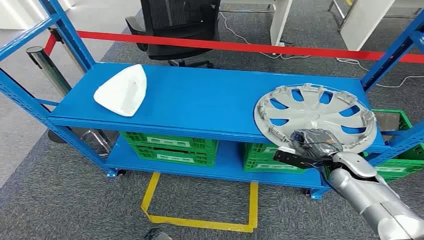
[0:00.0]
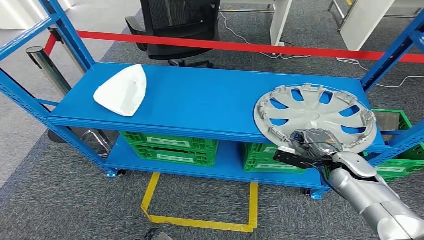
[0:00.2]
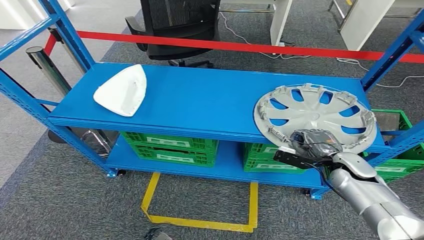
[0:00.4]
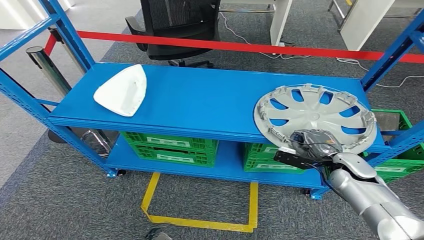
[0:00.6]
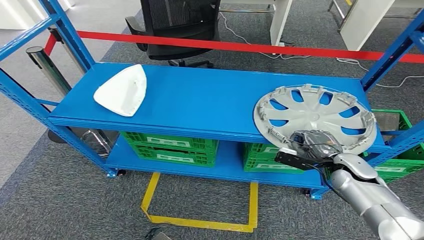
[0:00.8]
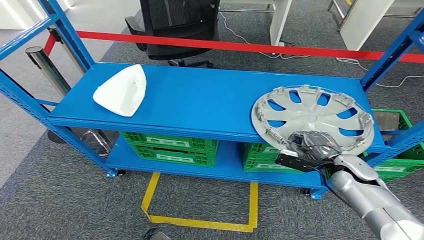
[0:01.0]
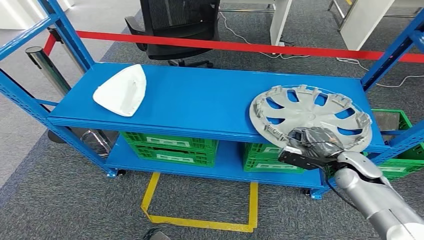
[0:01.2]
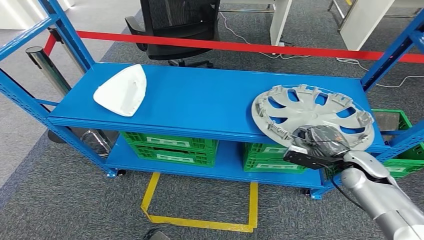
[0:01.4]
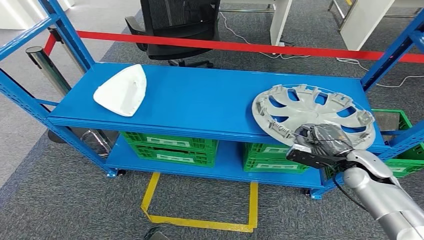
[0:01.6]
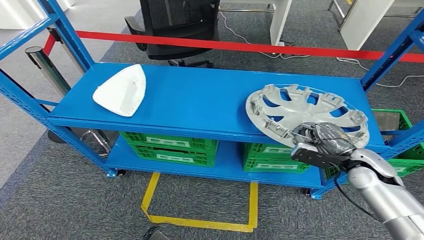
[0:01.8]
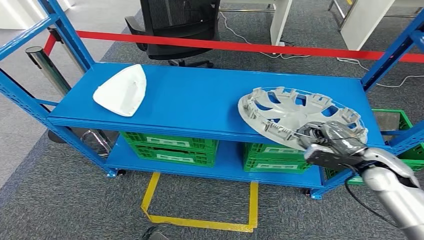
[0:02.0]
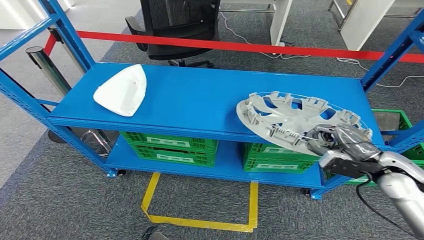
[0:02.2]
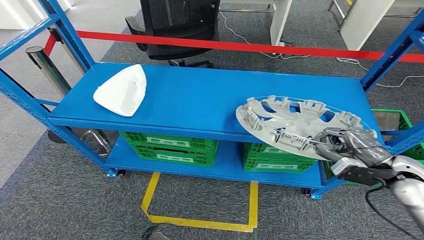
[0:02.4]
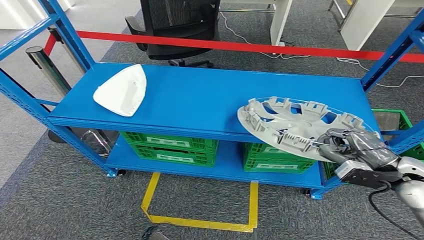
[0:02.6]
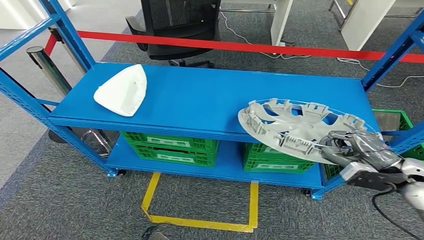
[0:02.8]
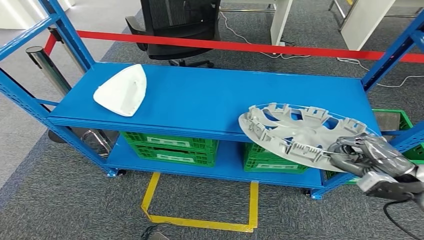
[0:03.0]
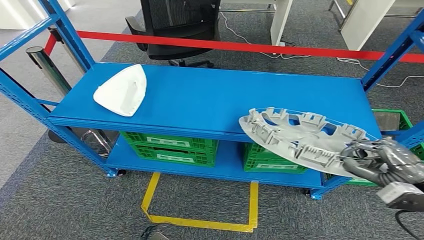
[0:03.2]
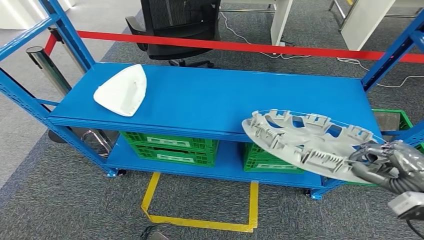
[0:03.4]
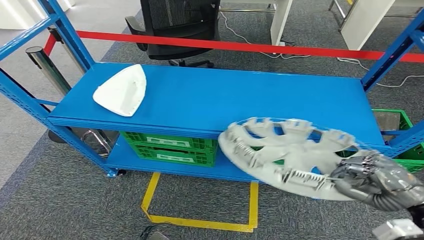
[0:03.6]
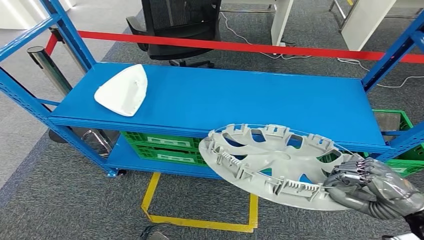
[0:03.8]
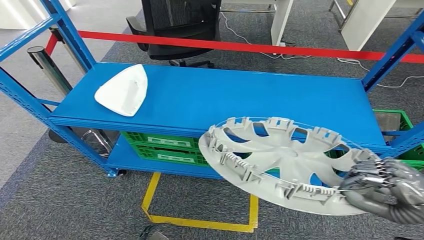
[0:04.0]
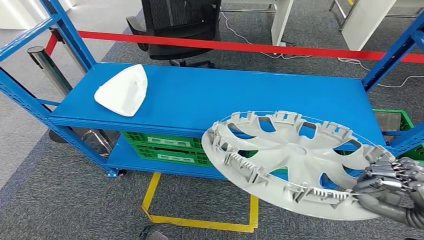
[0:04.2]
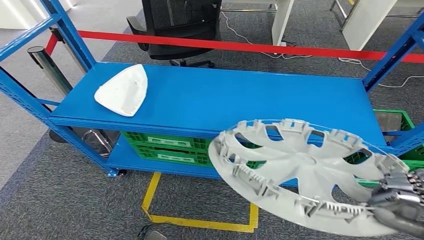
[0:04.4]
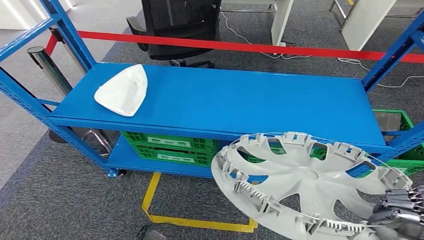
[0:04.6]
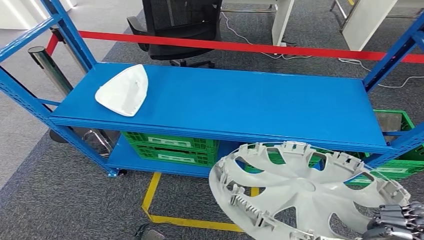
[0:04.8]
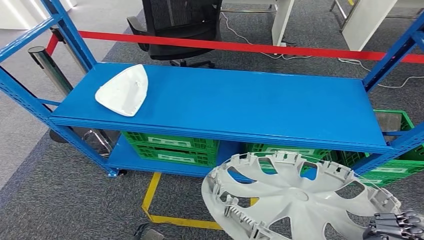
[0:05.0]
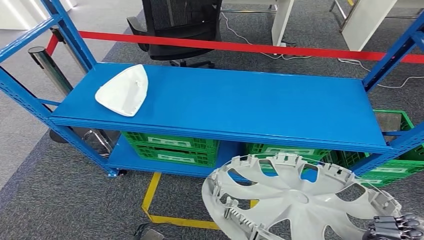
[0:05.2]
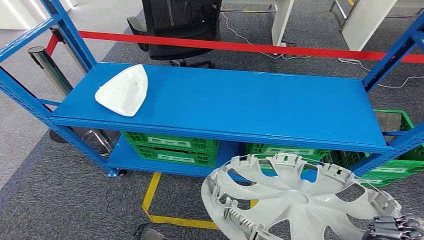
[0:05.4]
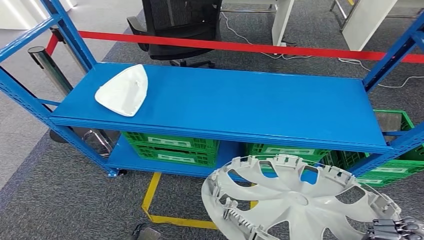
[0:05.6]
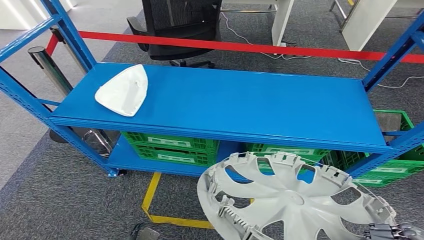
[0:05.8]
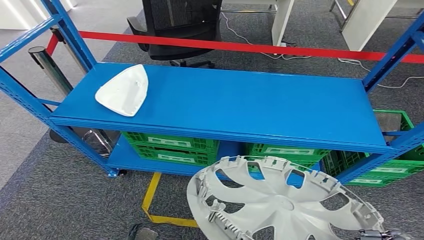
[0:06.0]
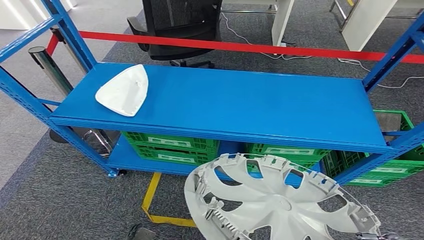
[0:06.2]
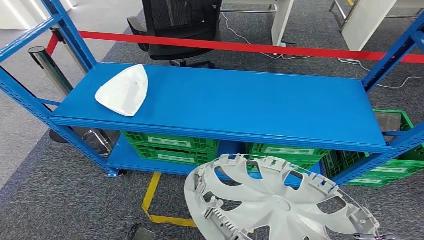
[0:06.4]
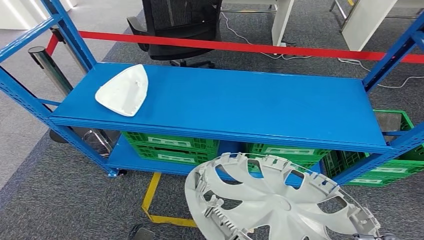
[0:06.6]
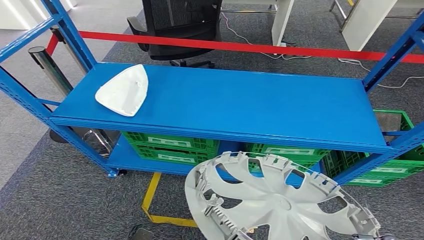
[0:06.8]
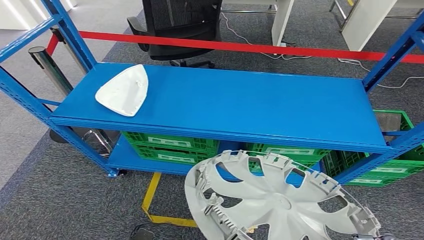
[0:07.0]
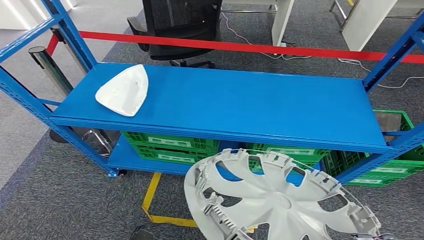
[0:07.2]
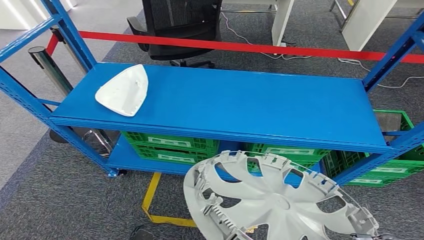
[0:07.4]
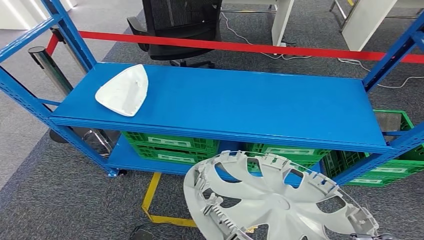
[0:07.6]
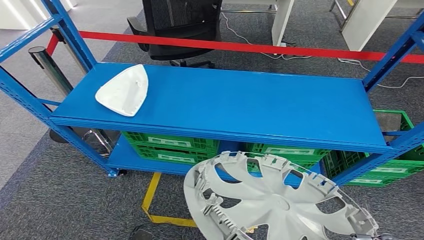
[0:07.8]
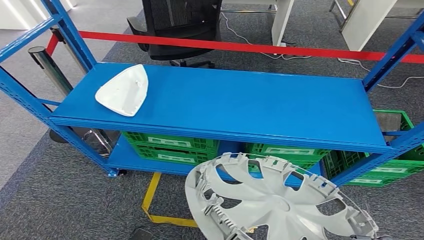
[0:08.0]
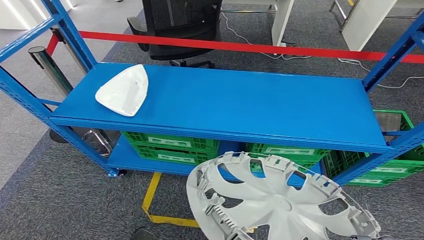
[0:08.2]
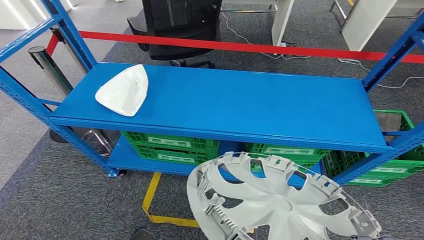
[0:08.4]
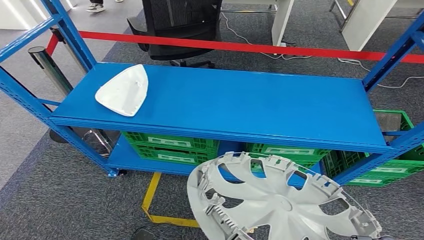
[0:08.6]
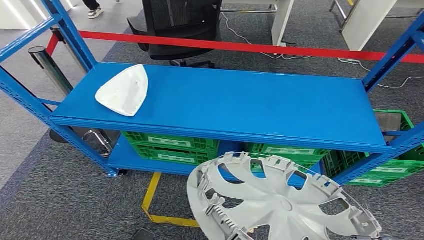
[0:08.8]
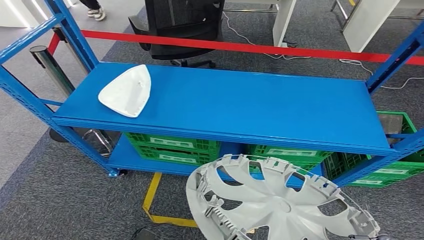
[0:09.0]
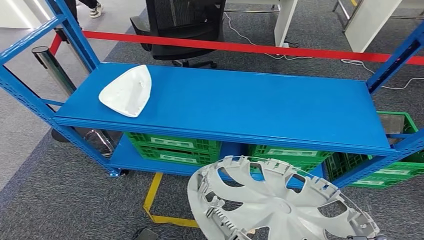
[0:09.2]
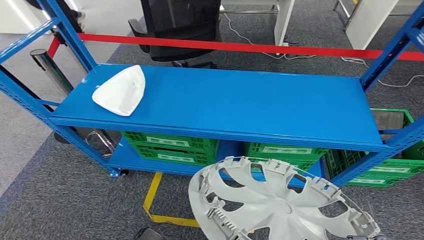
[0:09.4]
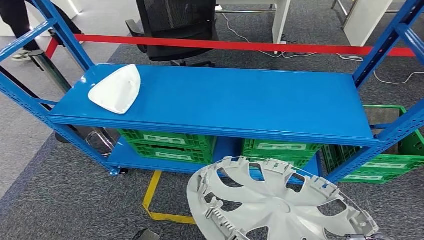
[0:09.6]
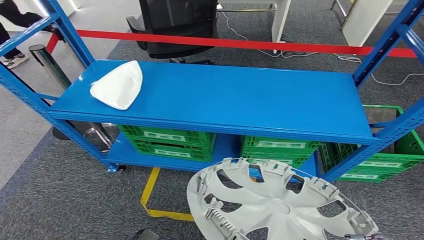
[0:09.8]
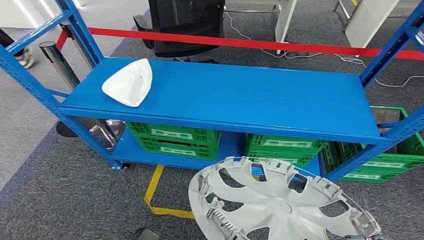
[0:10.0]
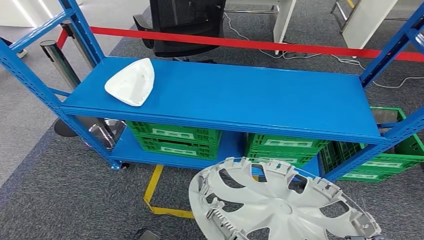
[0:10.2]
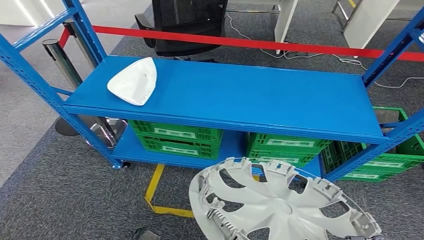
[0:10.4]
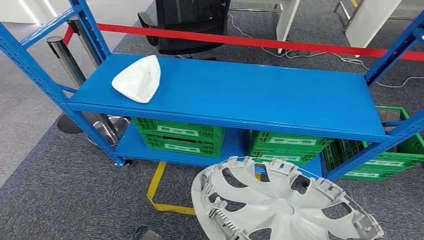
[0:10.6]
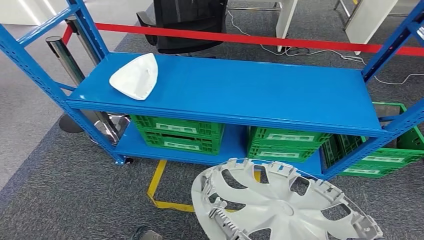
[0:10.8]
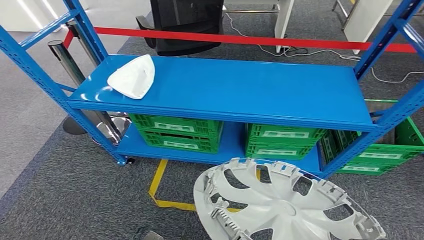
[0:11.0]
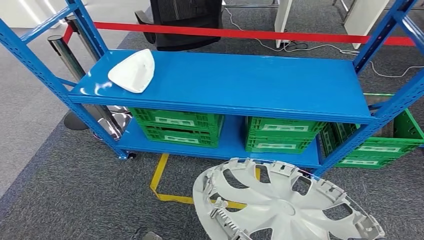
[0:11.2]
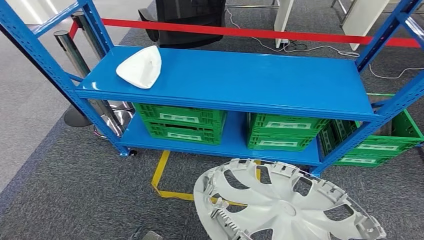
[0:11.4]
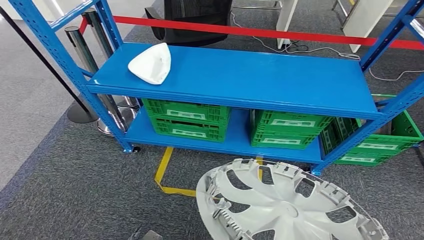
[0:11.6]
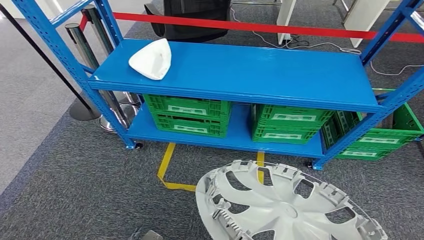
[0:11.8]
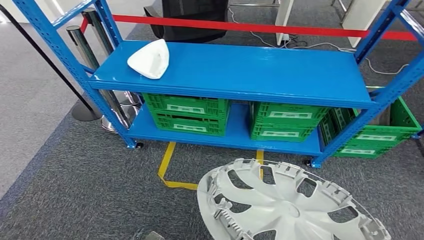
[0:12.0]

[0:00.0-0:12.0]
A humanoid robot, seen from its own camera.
Step, 0.0 to 10.2 s: Pick up the small component from the shelf.
1.6 to 3.0 s: The right hand shifts some 15 cm to the right, backward and upward.
3.0 to 4.4 s: The right hand travels backward and upward by some 15 cm.
4.4 to 6.0 s: The right hand shifts approximately 10 cm backward and downward.
6.0 to 7.6 s: The hands make only small movements.
7.6 to 9.0 s: Neither hand changes place.

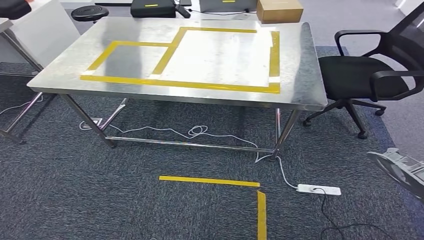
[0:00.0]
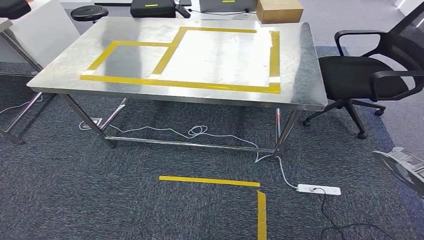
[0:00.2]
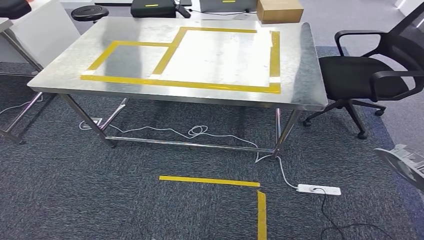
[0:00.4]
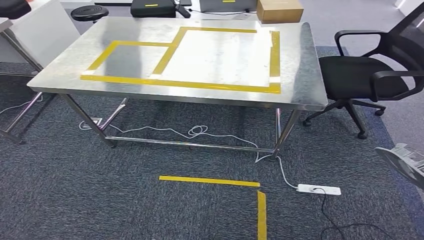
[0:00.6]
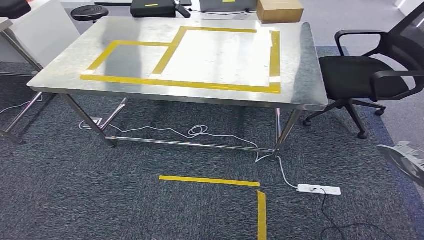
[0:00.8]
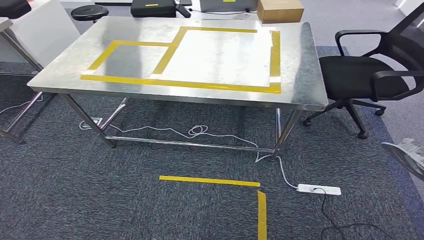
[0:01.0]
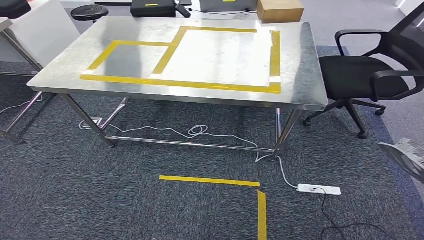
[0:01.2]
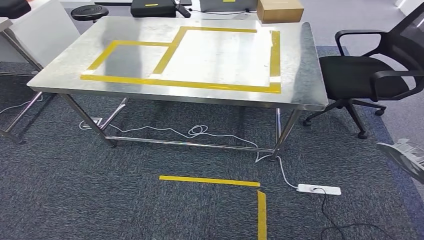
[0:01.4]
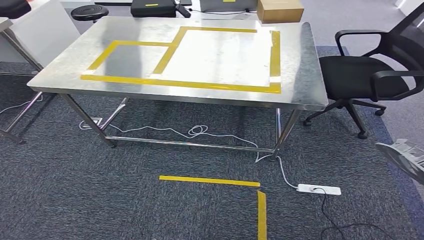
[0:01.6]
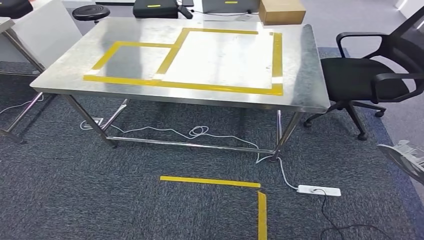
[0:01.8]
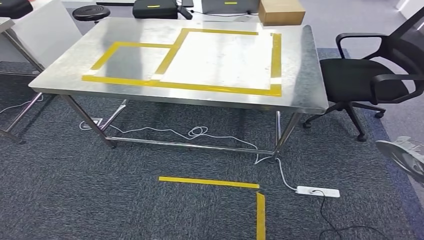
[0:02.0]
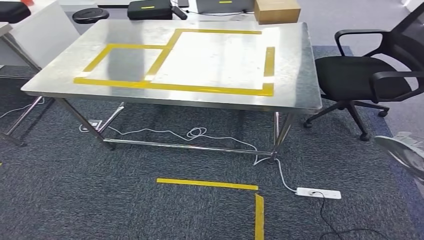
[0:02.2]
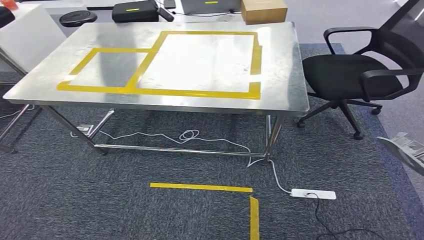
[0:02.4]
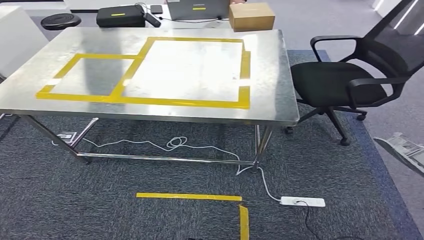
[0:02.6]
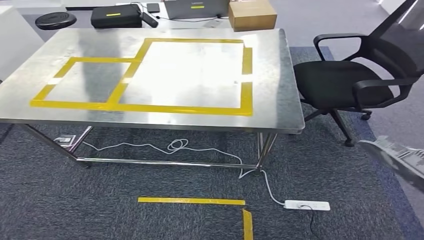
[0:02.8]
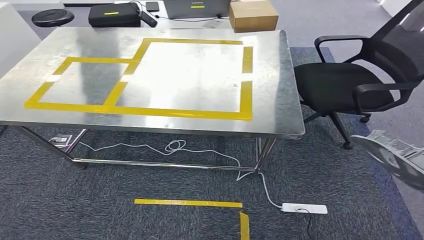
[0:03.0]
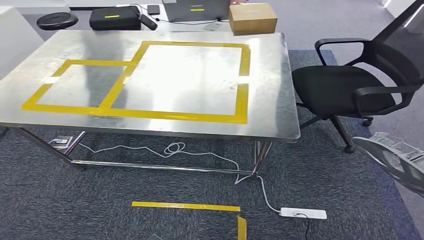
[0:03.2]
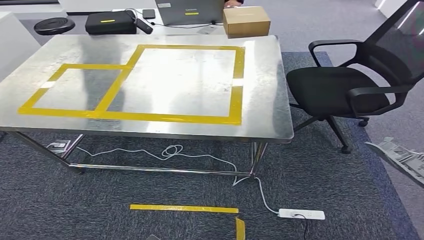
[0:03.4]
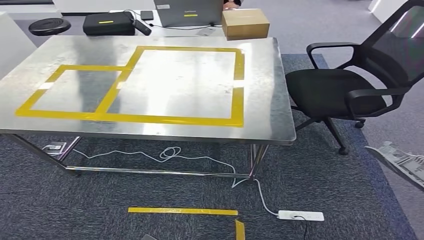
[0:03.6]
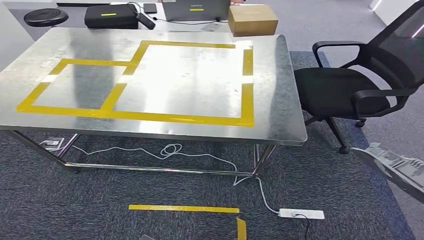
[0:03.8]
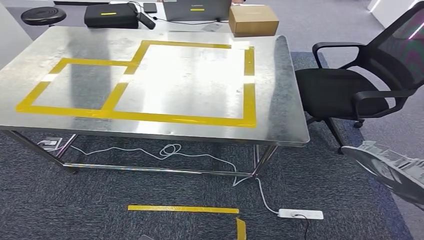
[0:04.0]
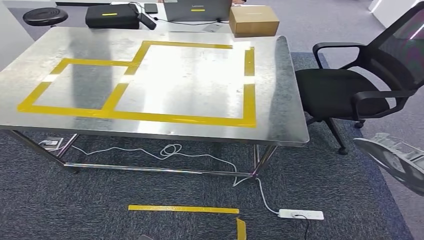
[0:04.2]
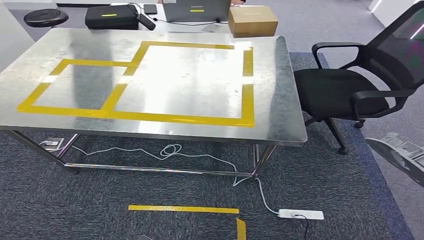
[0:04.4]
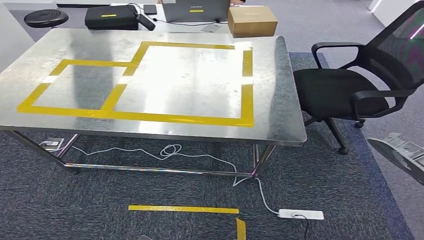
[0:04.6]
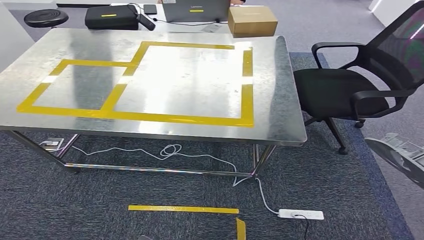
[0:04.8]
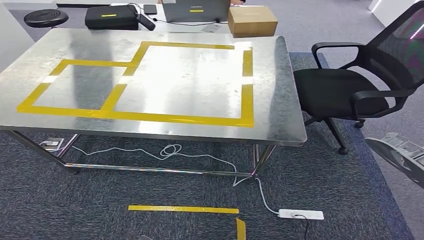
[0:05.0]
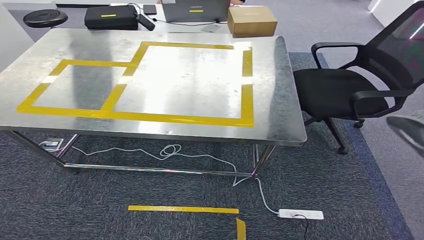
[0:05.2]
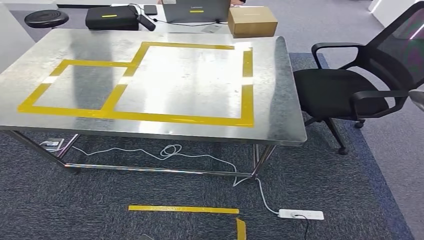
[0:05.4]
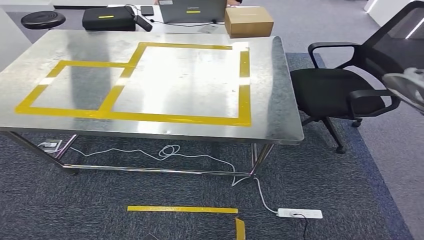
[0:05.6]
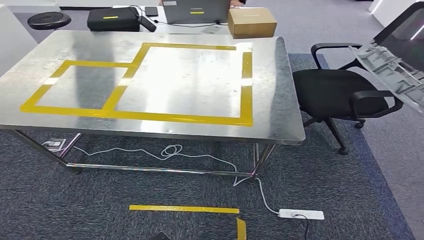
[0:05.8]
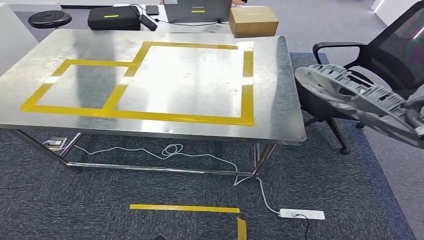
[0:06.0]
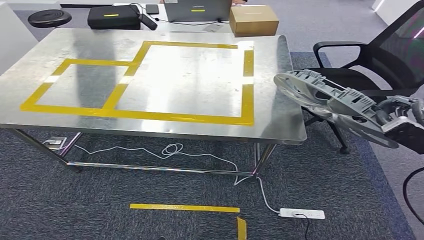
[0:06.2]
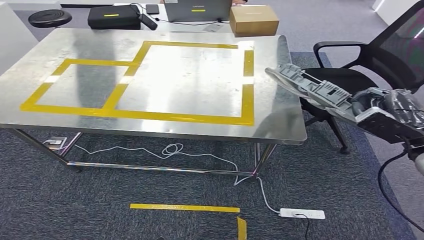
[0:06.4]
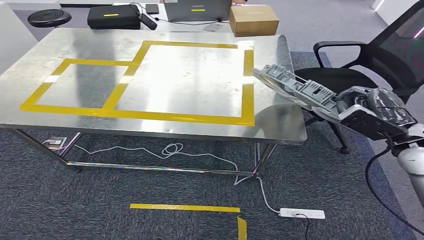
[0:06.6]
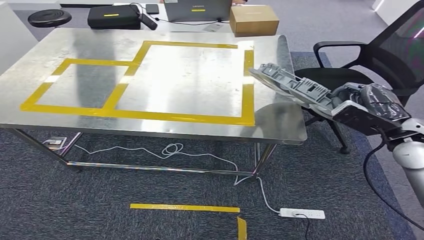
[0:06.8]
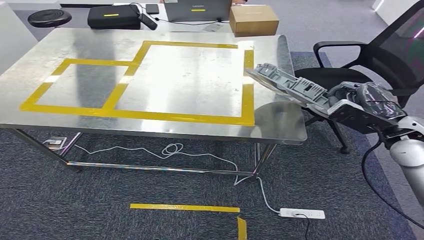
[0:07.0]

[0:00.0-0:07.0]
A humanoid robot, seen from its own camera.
Step, 0.0 to 6.2 s: Move the small component to the workbench.
0.0 to 1.4 s: There are only small adjustments of the hands.
4.2 to 5.6 s: The right hand goes approximately 15 cm forward.
